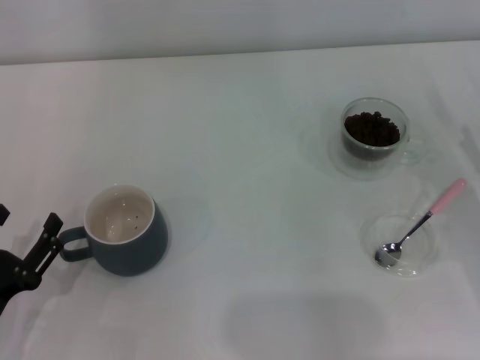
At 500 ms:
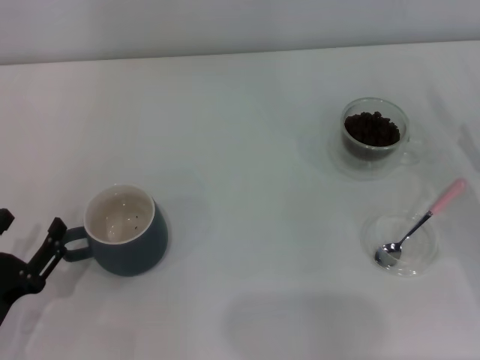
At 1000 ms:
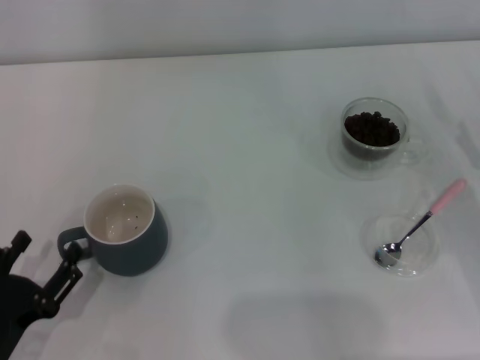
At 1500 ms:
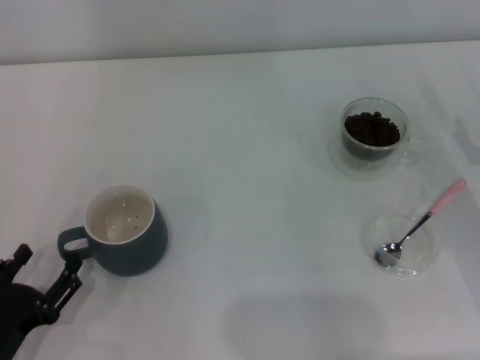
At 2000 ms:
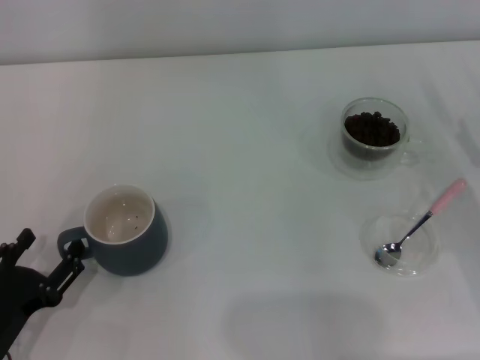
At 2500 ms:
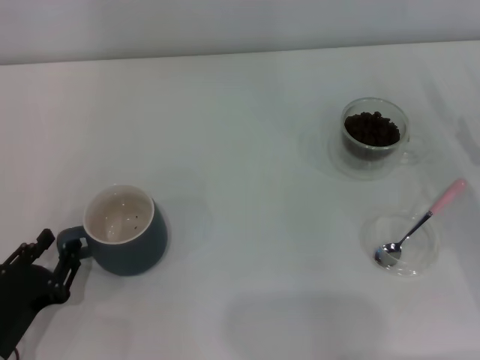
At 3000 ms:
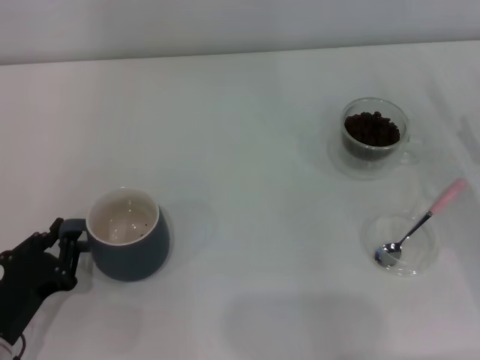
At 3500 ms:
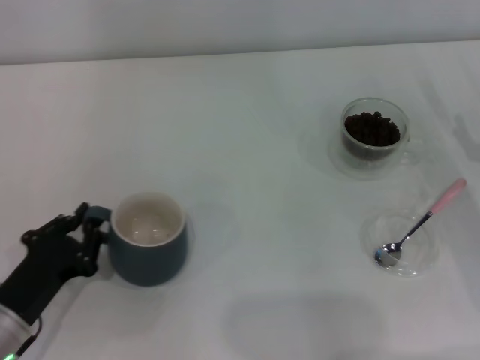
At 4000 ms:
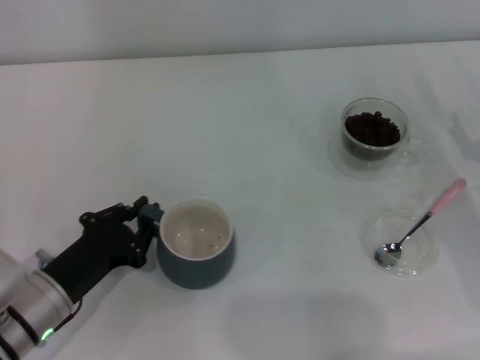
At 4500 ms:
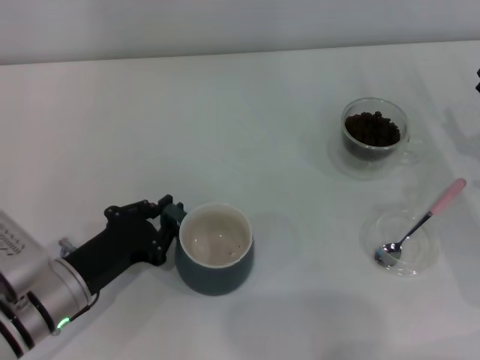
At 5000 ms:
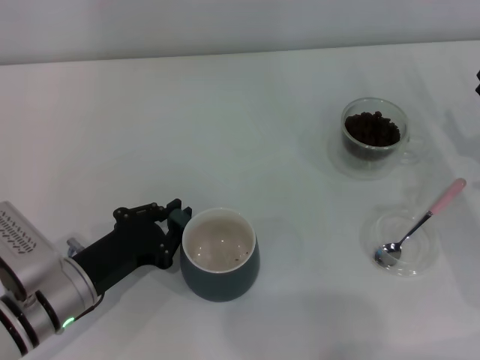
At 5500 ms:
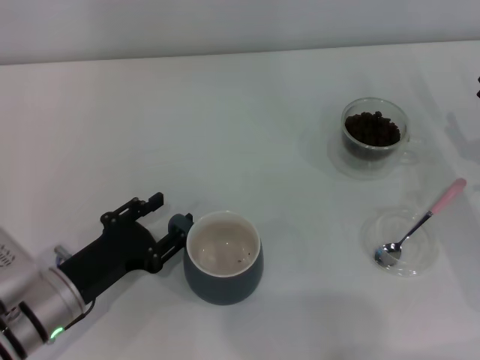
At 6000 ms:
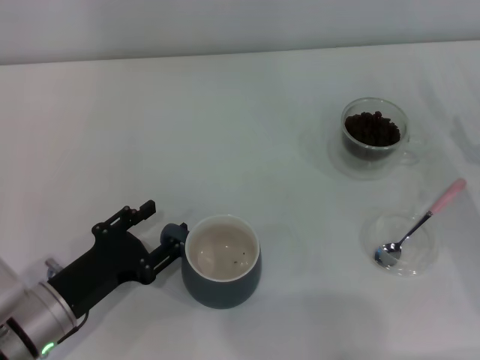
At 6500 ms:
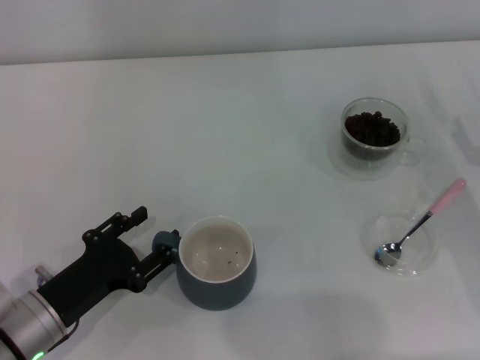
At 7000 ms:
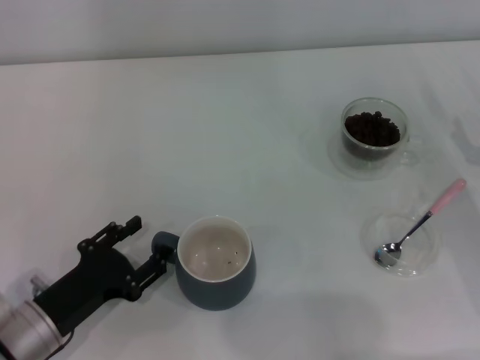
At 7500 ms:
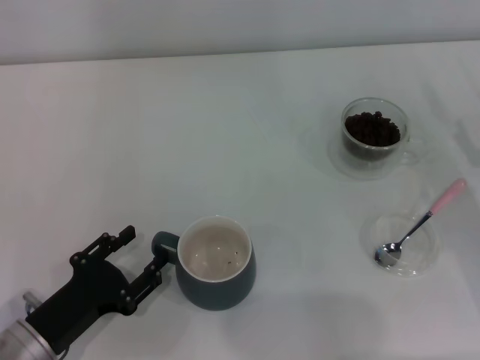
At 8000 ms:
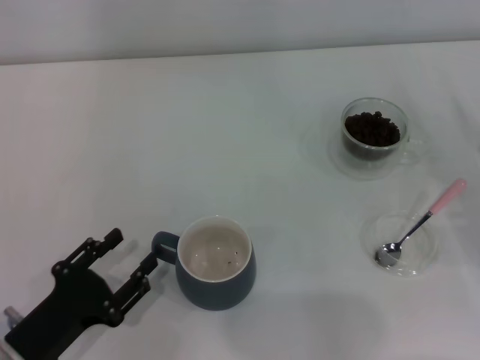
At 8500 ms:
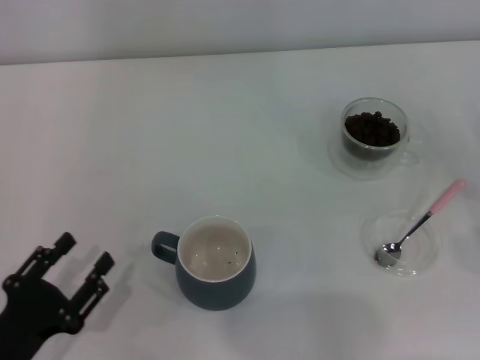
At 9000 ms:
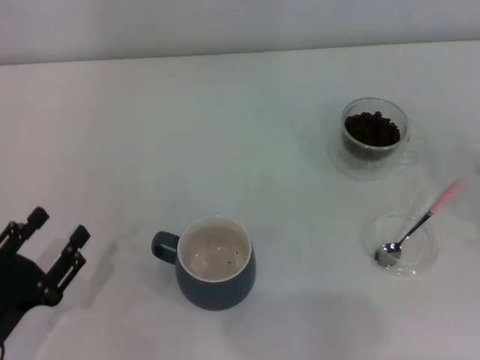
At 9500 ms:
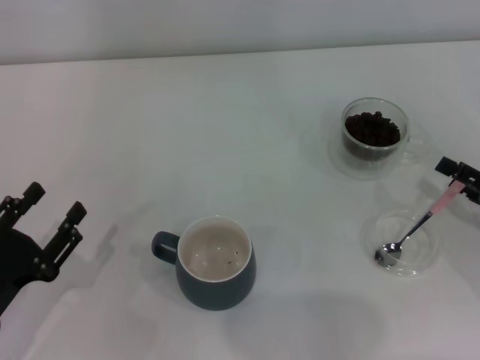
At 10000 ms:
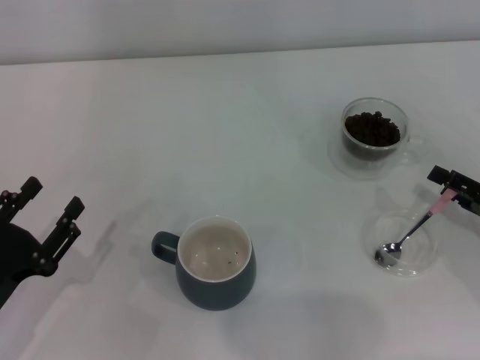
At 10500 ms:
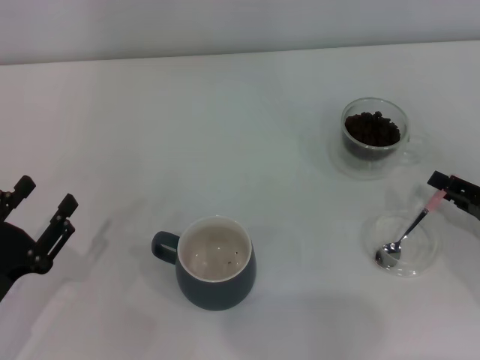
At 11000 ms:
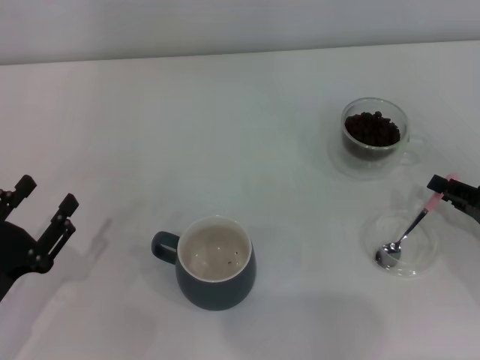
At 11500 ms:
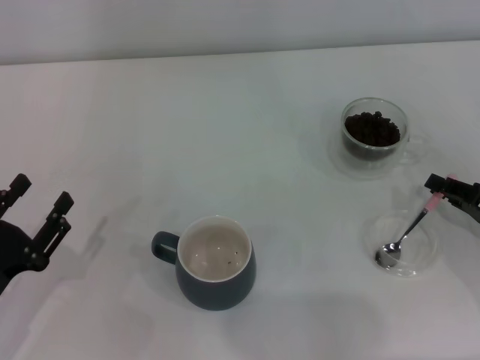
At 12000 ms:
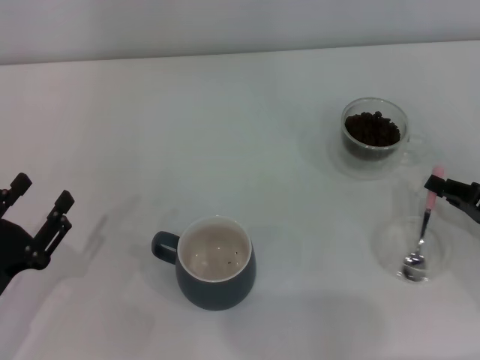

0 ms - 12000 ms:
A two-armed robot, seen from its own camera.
Task of the whole recording: Use a pink spoon to take out the coffee beans from the glass and pour them into the gray cup.
Step, 0 ms - 7500 ms: Move the cup to the center of view with the left gripper.
0 ms - 2000 ms: The grippers stay close to where they were, moving slightly.
2000 ms - 4000 ms: The left gripper is displaced forward and to the right by roughly 10 cm, and closes up.
4000 ms - 6000 ms: The left gripper opens its fingers.
6000 ms - 8000 ms: The left gripper travels backward by approximately 5 cm.
10000 ms - 12000 ms: The right gripper closes its fingers.

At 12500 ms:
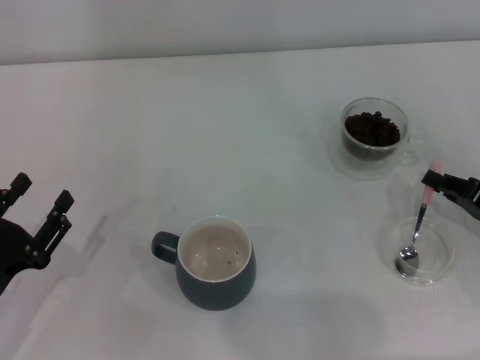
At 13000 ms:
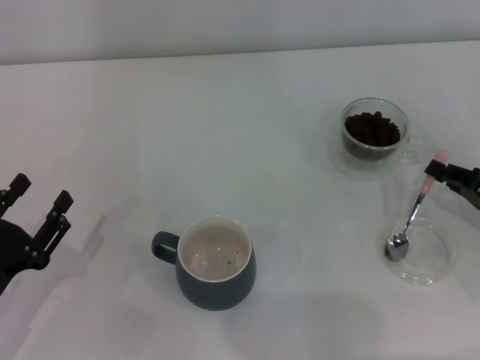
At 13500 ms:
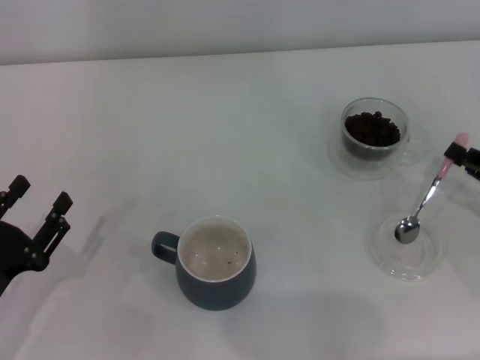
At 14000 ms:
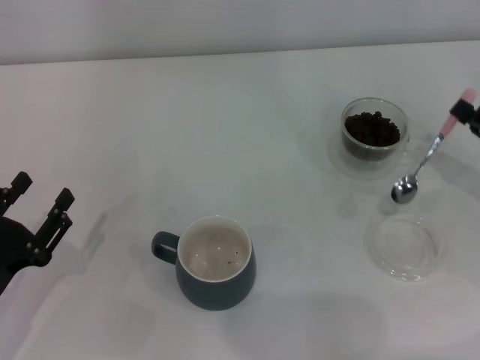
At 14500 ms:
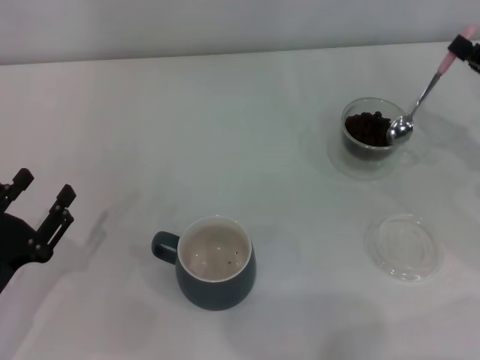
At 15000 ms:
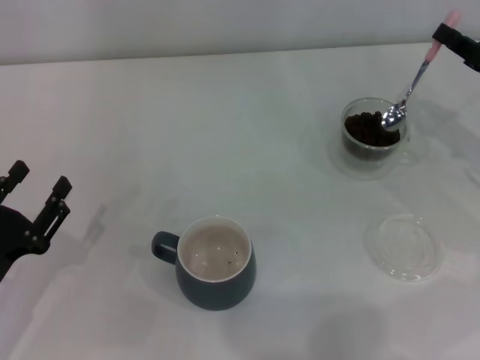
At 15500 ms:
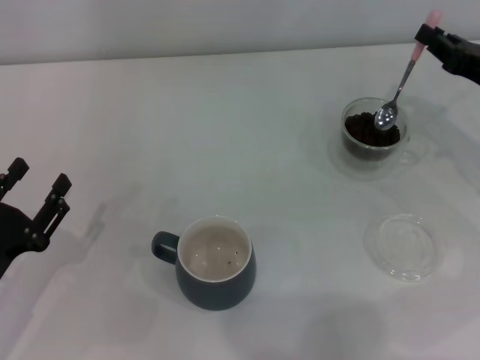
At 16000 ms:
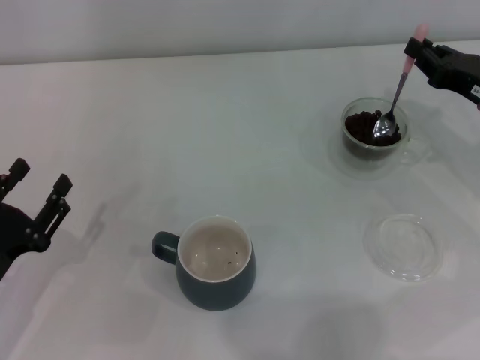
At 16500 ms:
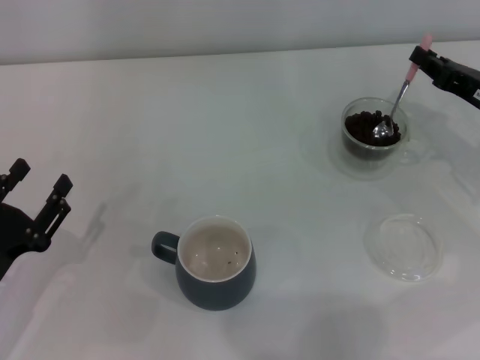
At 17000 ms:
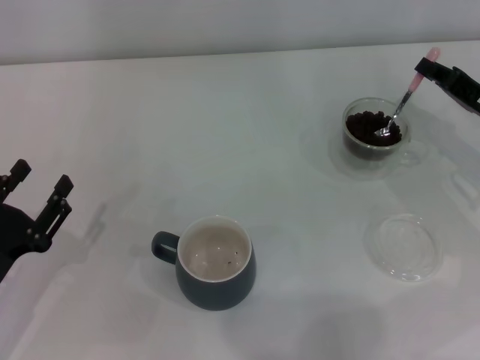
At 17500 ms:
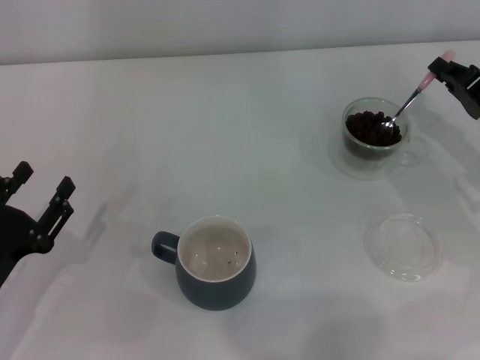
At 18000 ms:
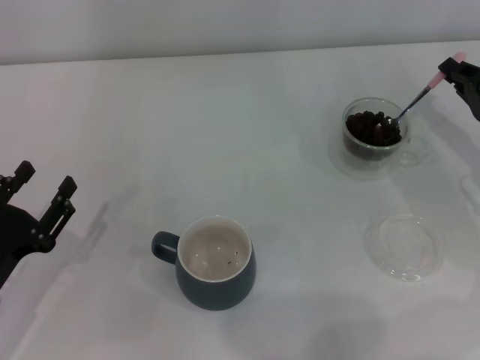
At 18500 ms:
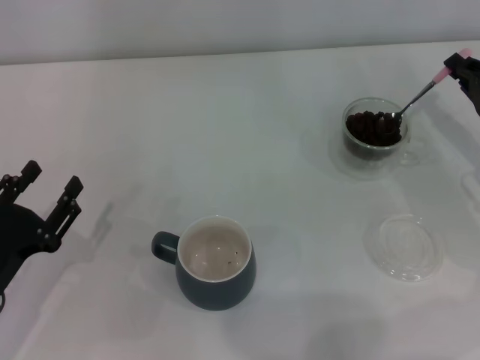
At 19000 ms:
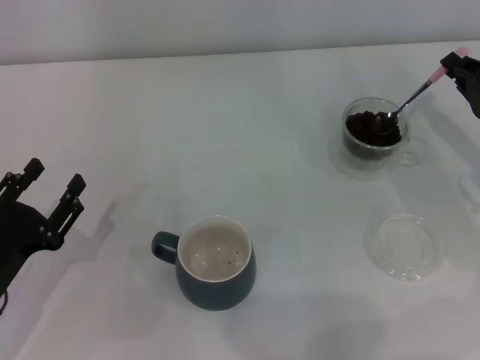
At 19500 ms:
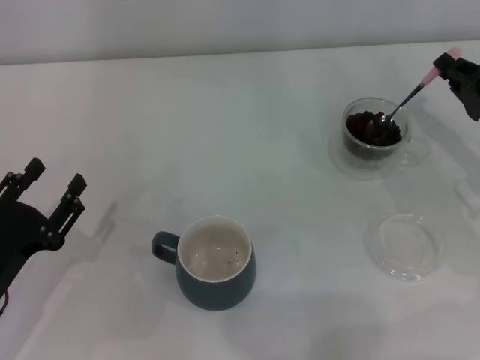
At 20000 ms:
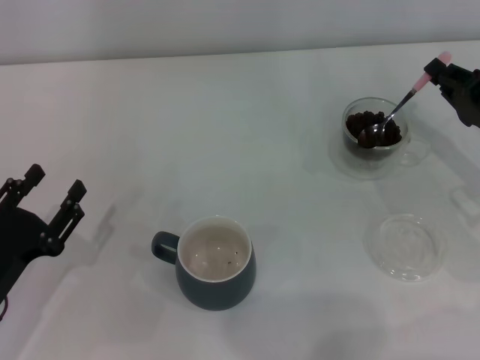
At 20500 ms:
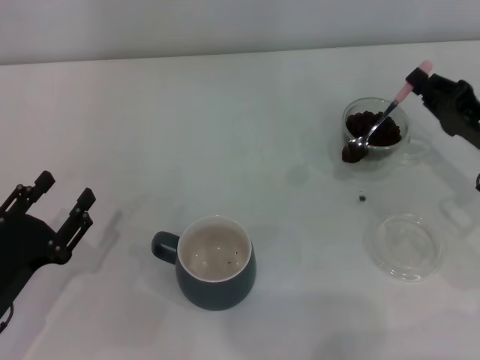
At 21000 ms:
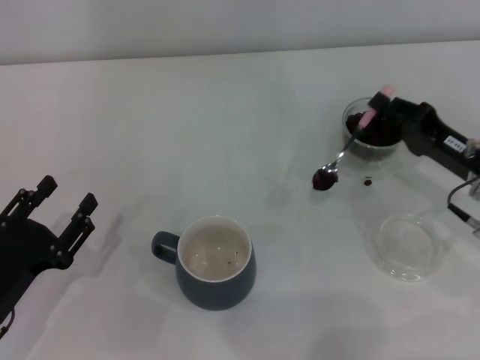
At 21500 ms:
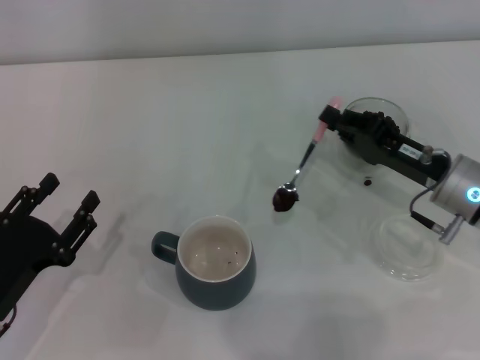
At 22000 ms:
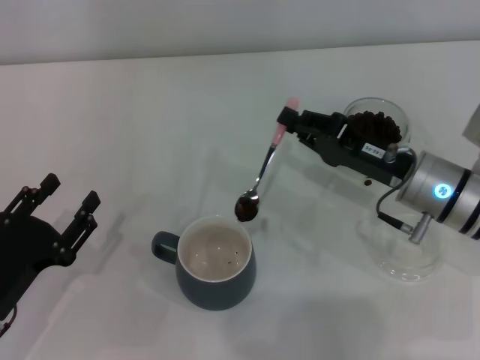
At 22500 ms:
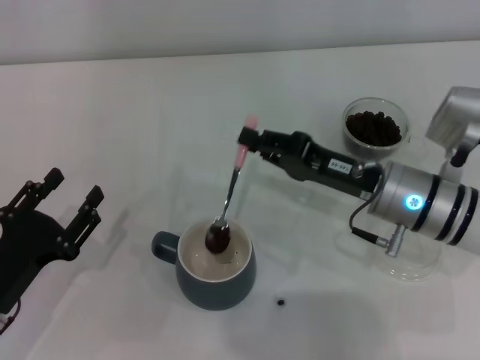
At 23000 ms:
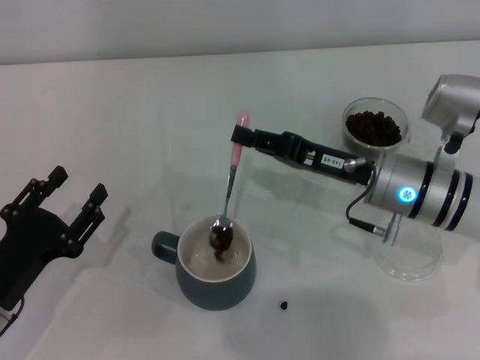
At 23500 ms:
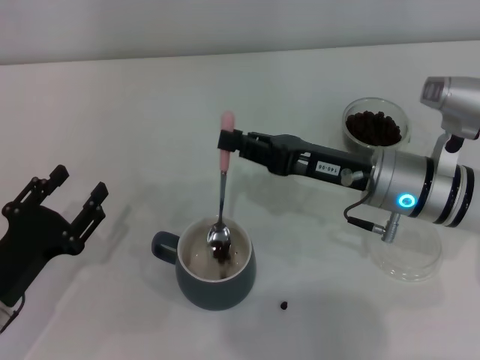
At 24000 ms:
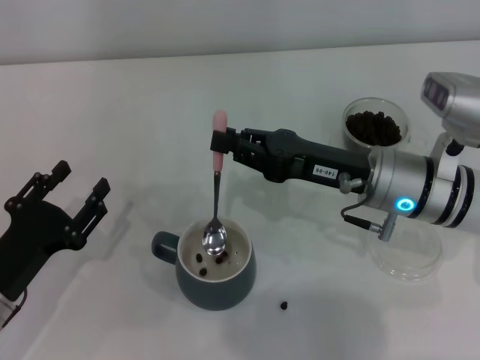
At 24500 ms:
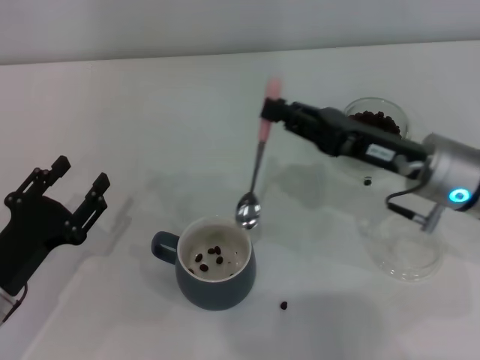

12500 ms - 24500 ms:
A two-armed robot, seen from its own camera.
Task of the whole recording: Use a pink spoon to take out the coffee beans from the glass and pour them into the gray cup.
Step, 14000 ms - 23500 ms: Scoop a spoonful of beans into the cup with the right gripper.
12500 ms - 14500 ms: The right gripper moves upward and forward, some 10 cm.
18500 ms - 20500 ms: The grippers make only small movements.
20500 ms - 22500 ms: The right gripper is displaced to the left by approximately 15 cm.

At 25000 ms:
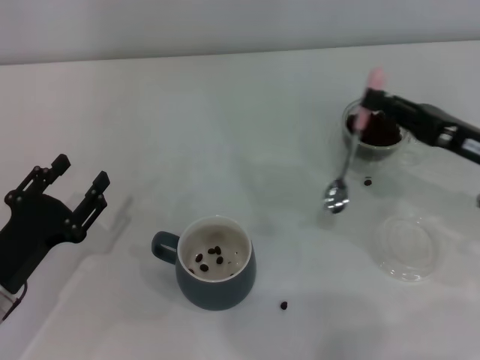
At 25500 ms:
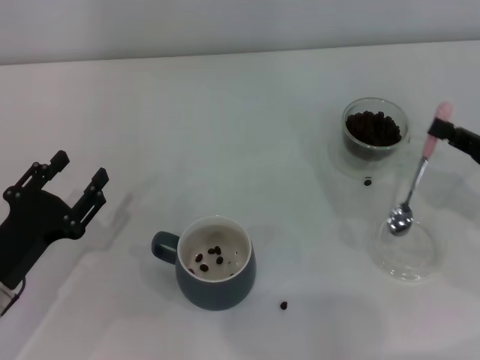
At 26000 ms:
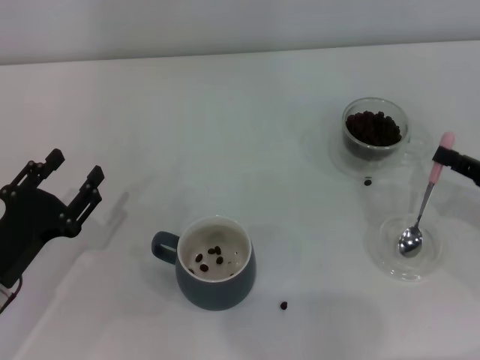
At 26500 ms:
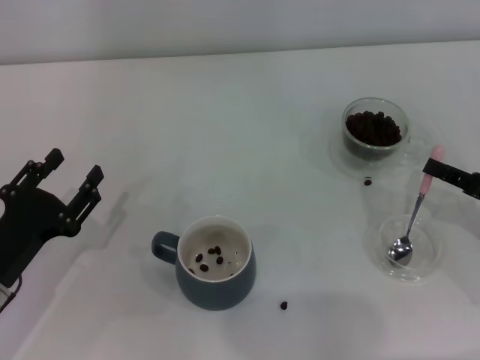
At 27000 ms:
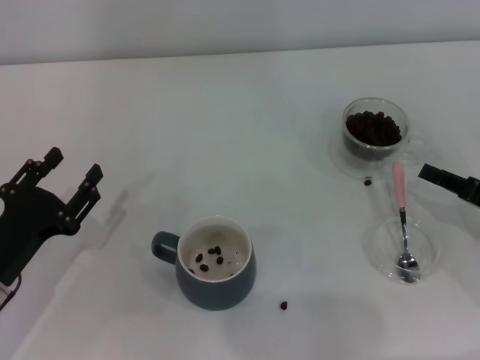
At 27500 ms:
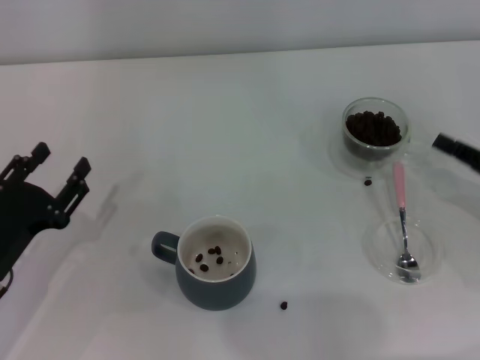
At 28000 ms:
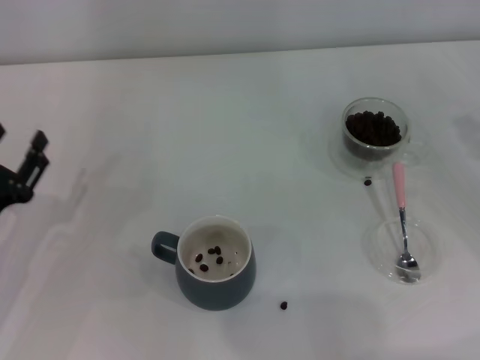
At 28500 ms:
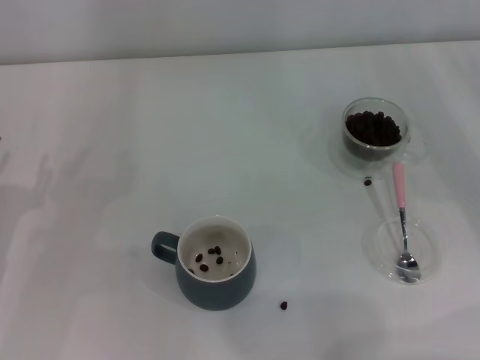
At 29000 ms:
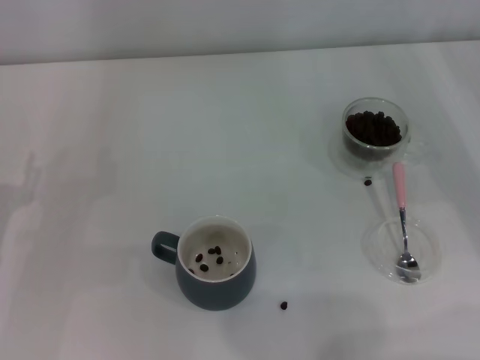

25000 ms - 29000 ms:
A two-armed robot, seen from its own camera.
Task of the whole recording: Use a pink spoon to take out the coffee beans from the glass and pour them into the gray cup.
Step, 25000 ms - 26500 ms: Place the spoon back in its original place with the right gripper.
25000 ms - 27000 ms: The right gripper heads to the right and downward, covering about 10 cm.
27000 ms - 29000 ms: The right gripper moves forward, approximately 5 cm; the left gripper shifts by approximately 5 cm.
